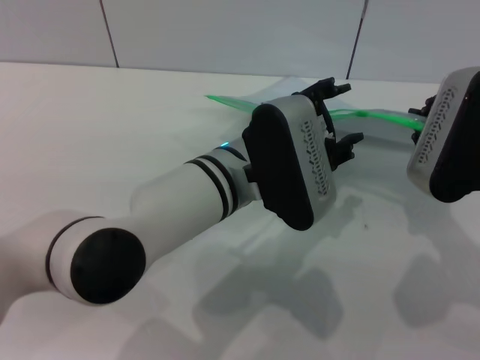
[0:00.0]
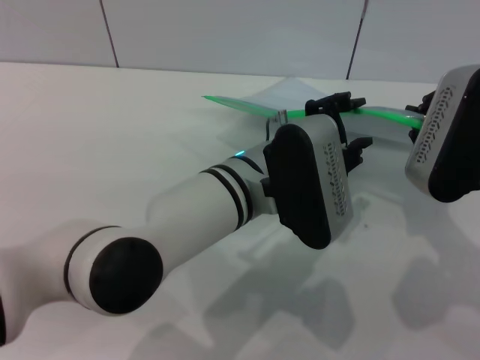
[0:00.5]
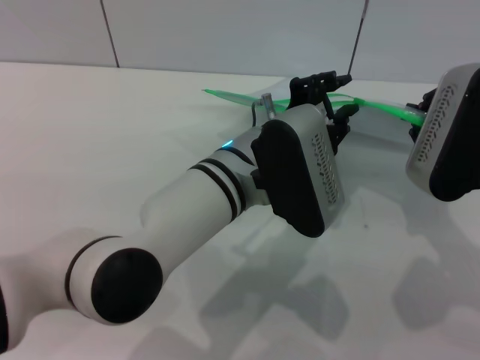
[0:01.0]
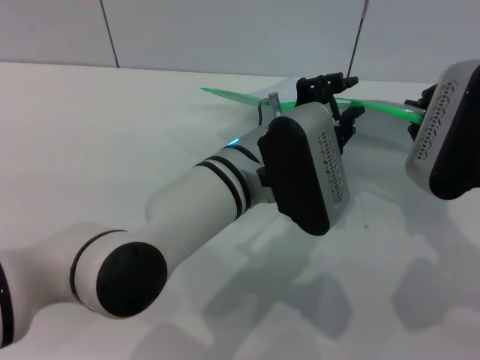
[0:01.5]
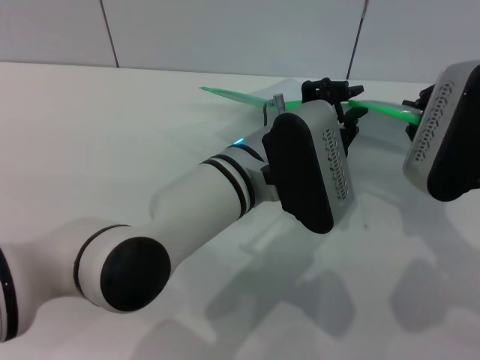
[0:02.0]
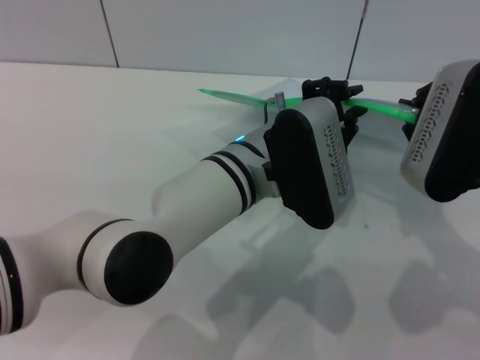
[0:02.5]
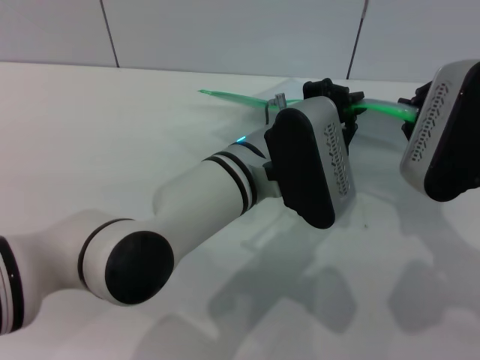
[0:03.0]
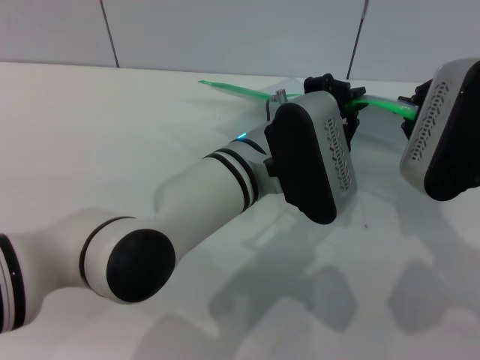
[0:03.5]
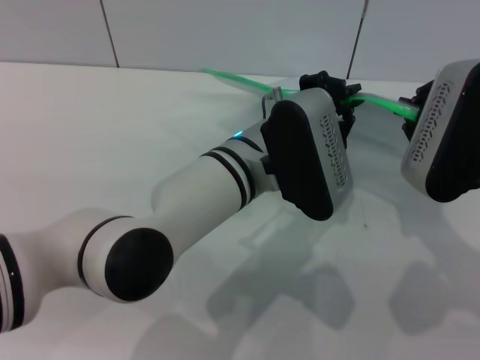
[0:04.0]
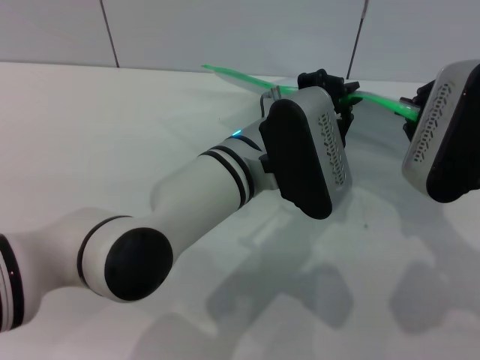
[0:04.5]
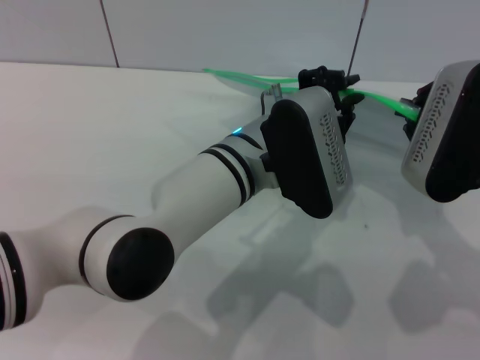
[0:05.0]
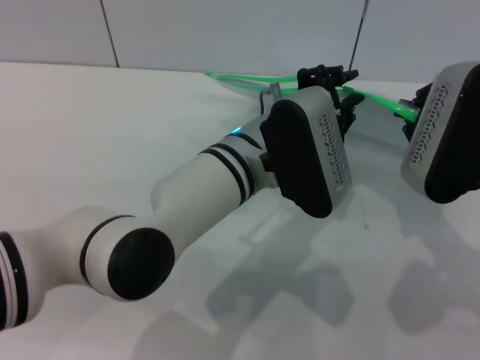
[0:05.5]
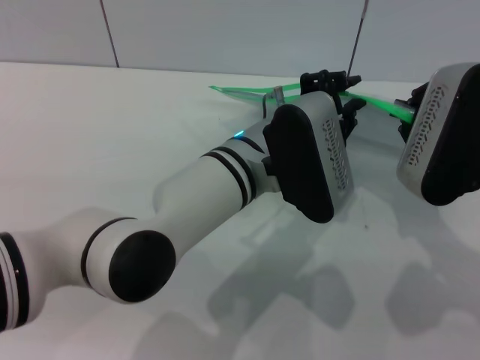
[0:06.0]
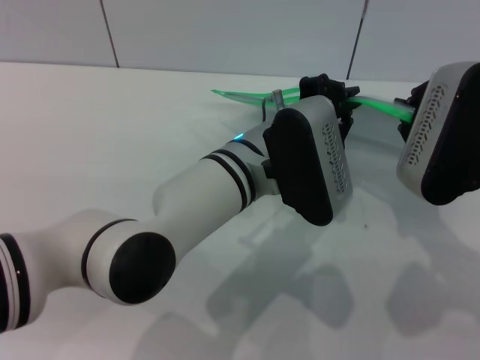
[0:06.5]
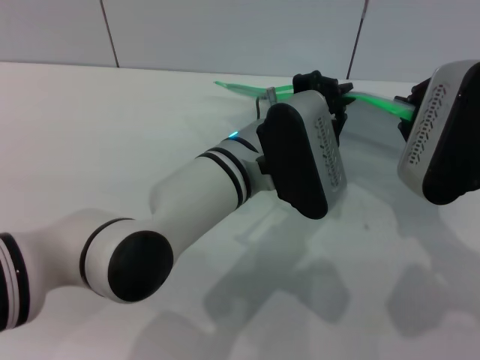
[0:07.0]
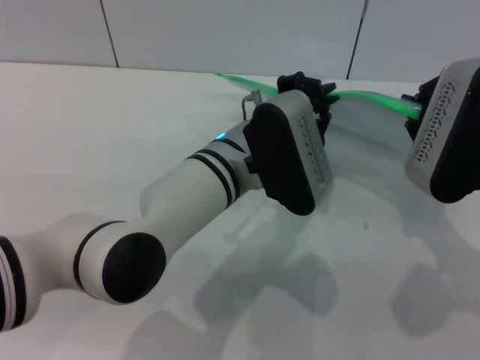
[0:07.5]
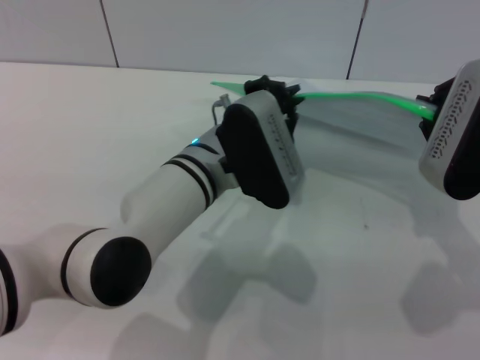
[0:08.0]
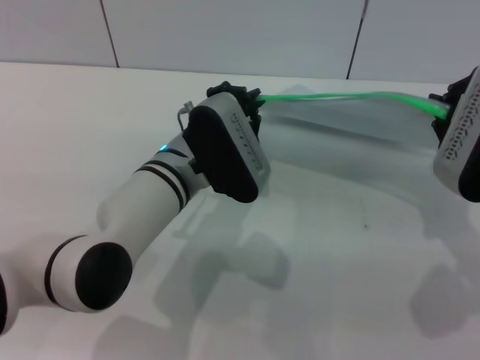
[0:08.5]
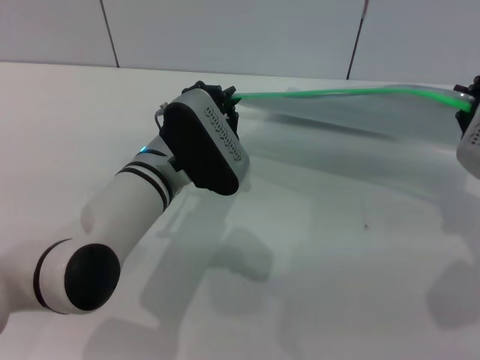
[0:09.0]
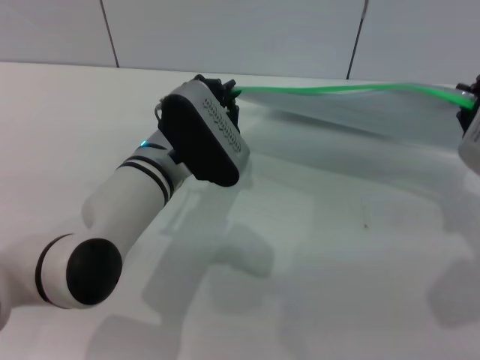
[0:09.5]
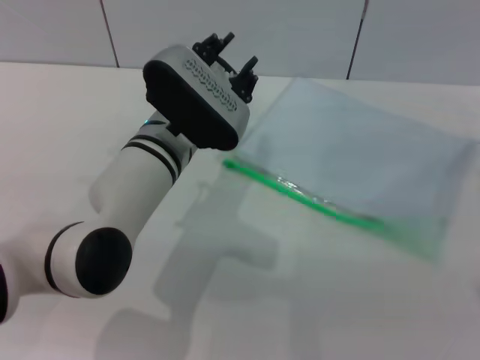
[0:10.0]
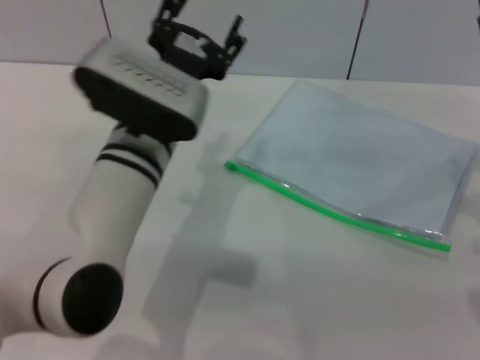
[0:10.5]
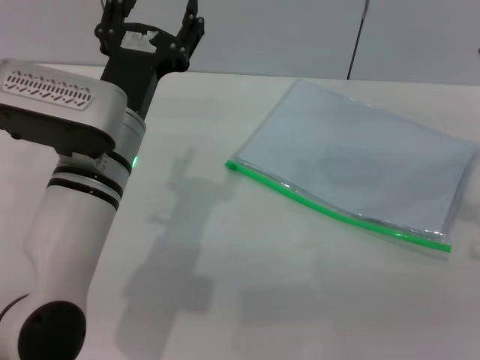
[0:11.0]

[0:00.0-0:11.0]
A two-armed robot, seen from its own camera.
Step, 0:00.0 to 0:09.5: Pulling up the zipper on the transparent plastic bag with the left gripper to close it.
0:00.0 to 0:02.0: The left gripper closes.
0:02.0 to 0:05.5: Both grippers stay about where they are.
0:05.5 to 0:07.5: There are only small adjustments of the grippers.
0:07.5 to 0:09.0: The left gripper goes some 5 cm to the left.
0:09.0 to 0:11.0: The left gripper is displaced upward by some 5 cm, and opens its fingers. Meanwhile the right gripper moves approximately 5 cm, and opens.
